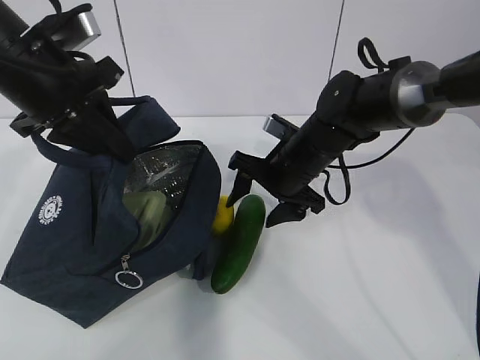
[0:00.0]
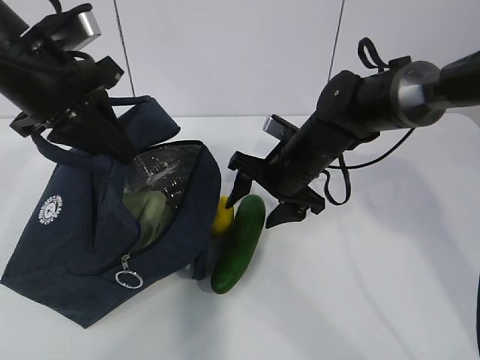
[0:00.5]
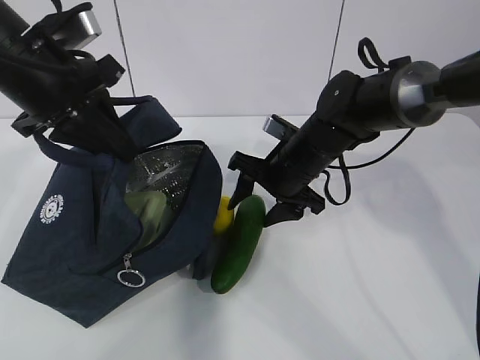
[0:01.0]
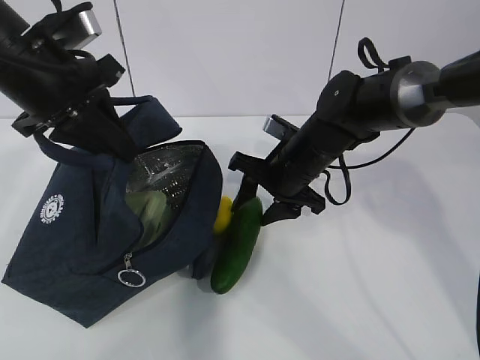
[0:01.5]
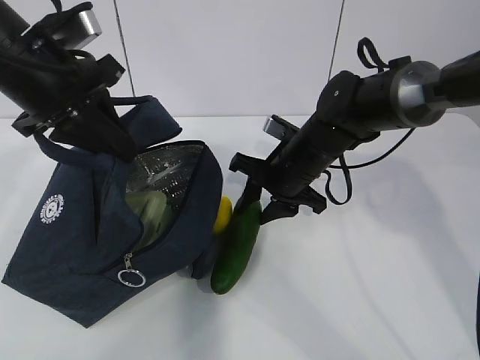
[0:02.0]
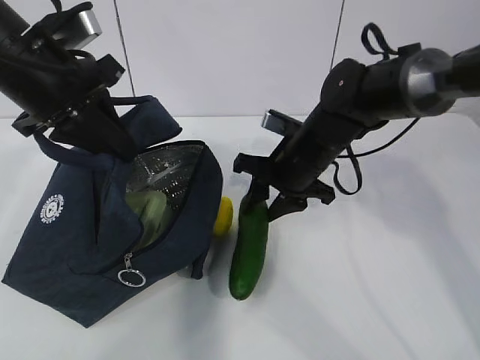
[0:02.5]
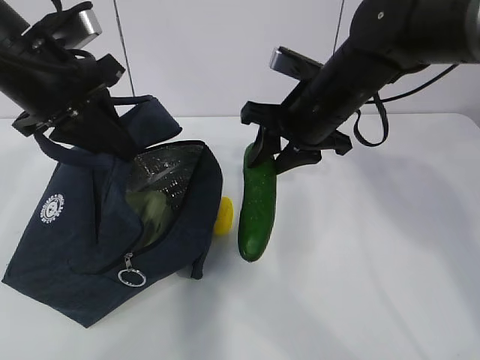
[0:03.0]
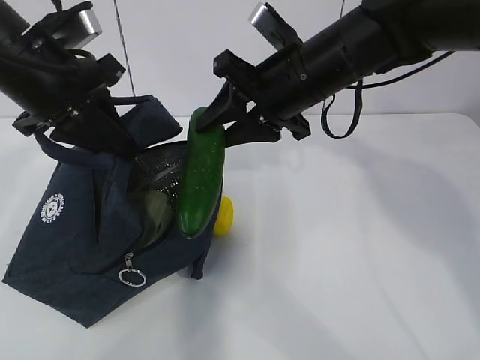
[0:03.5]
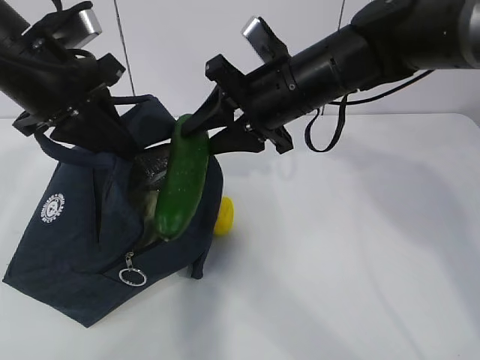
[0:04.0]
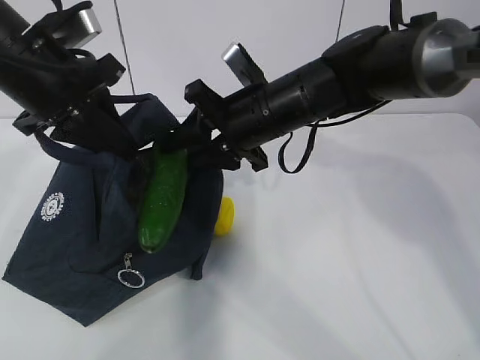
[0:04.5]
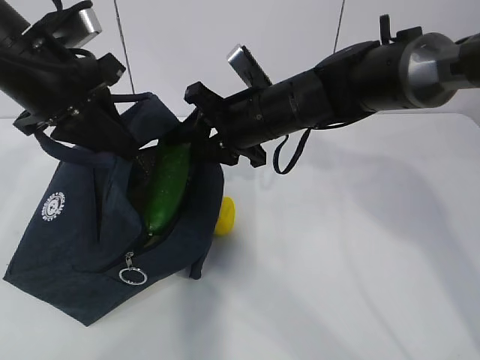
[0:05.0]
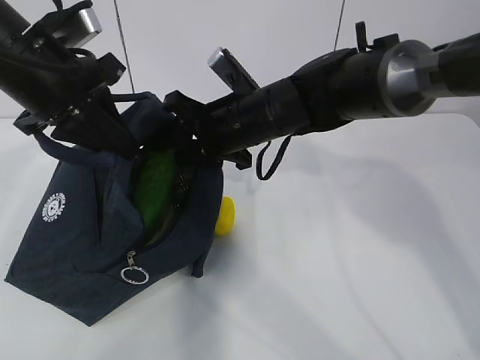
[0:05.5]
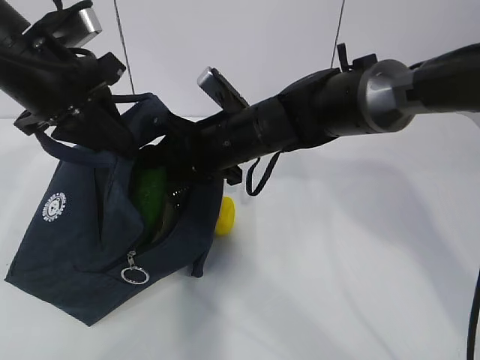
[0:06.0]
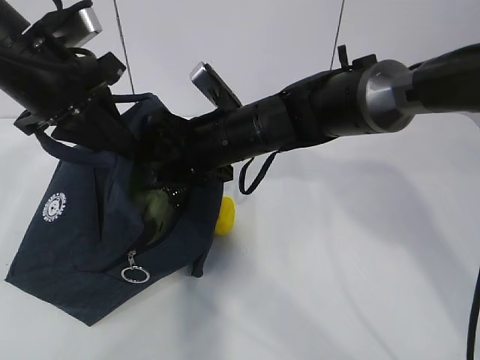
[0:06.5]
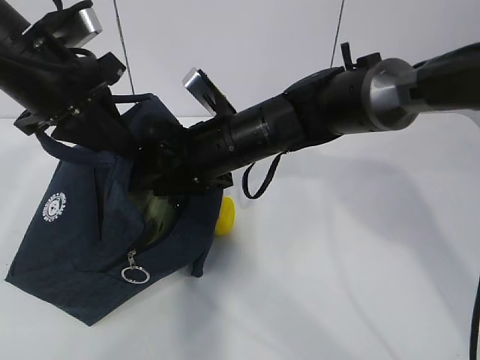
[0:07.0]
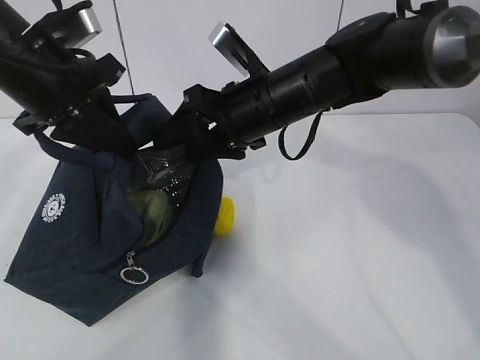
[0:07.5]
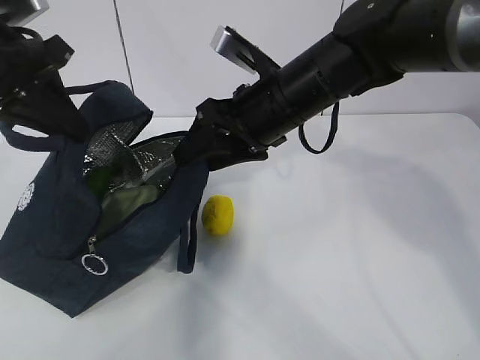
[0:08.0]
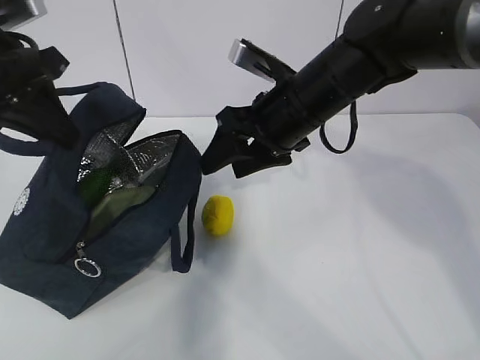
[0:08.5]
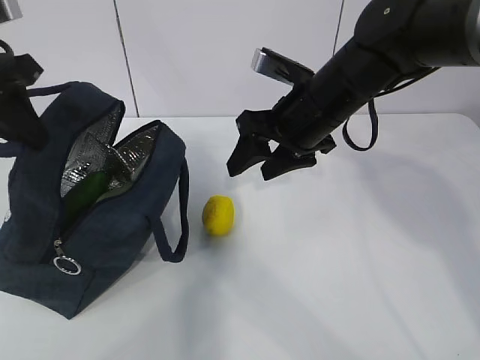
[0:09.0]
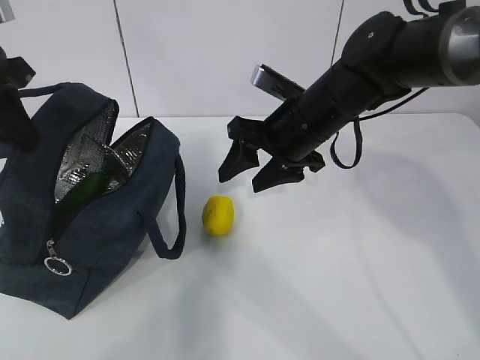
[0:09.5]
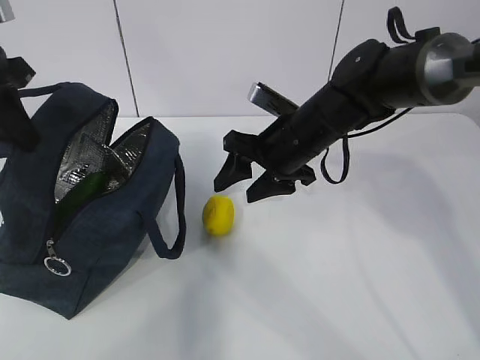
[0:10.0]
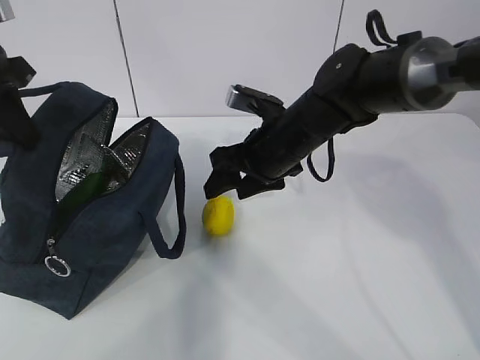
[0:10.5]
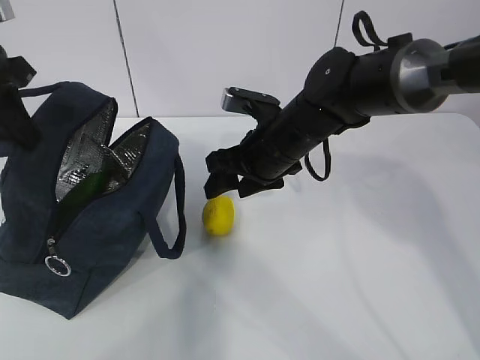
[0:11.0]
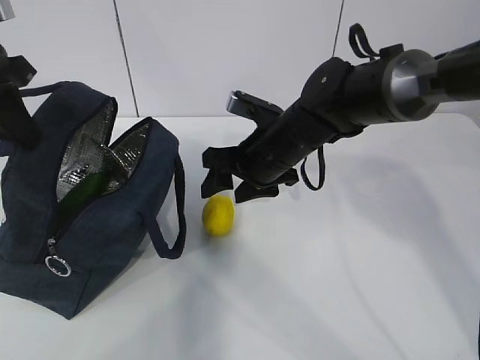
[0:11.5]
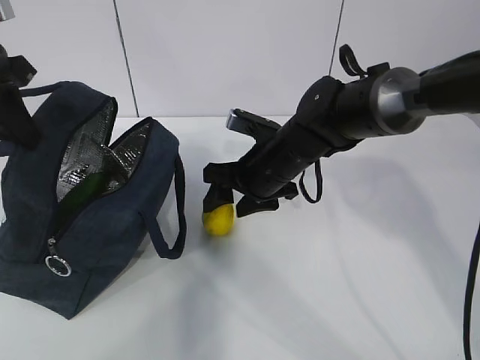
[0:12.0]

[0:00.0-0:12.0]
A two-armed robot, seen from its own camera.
Step, 0:00.0 to 0:06.5: Grab the lemon with your right hand.
Step, 0:07.0 to 0:09.0: Secure the lunch bag with your left hand.
Step, 0:09.5 to 0:11.5: Grab the lunch bag with your right hand.
0:00.0 to 0:02.0: The right gripper closes.
0:02.0 to 0:04.0: The right gripper shifts about 10 cm upward.
0:04.0 to 0:06.0: The right gripper shifts some 10 cm downward and to the left.
0:06.0 to 0:08.0: The right gripper travels upward by about 5 cm.
0:08.0 to 0:10.0: The right gripper heads downward, covering about 5 cm.

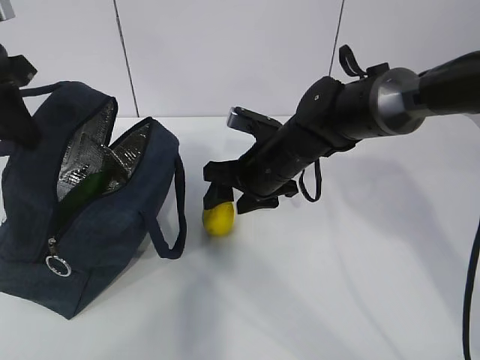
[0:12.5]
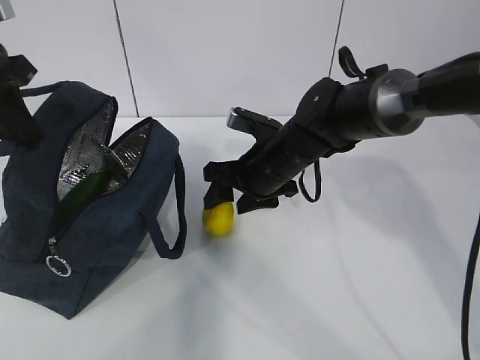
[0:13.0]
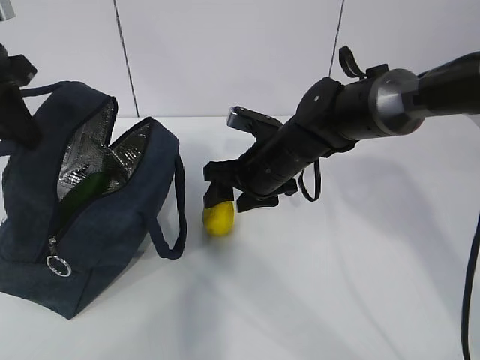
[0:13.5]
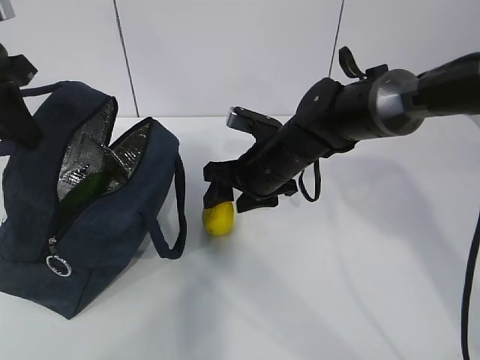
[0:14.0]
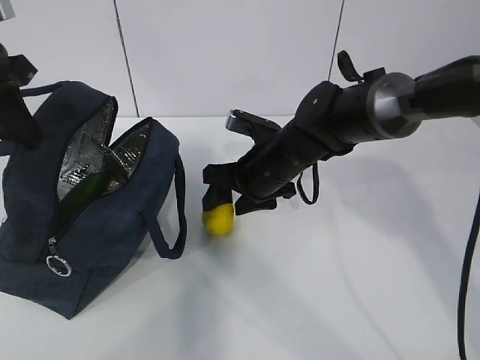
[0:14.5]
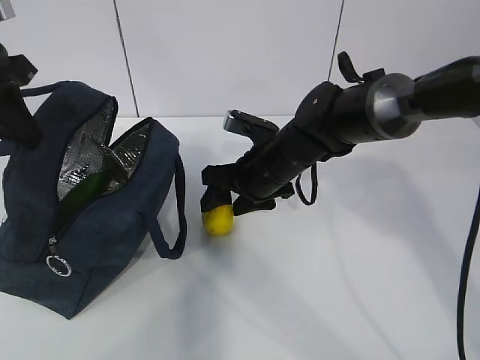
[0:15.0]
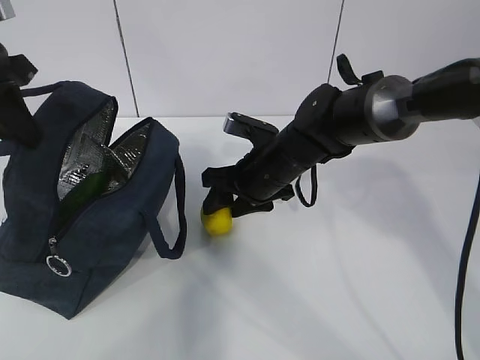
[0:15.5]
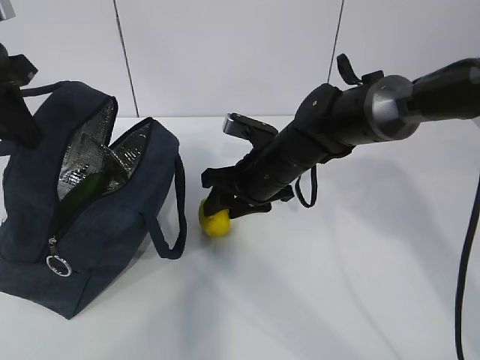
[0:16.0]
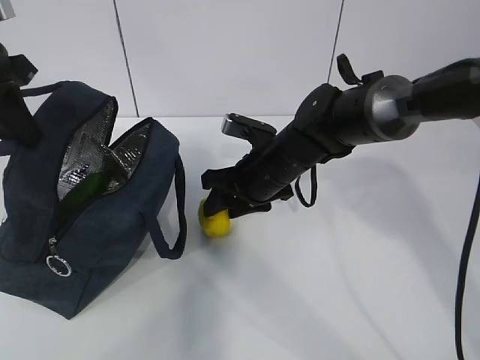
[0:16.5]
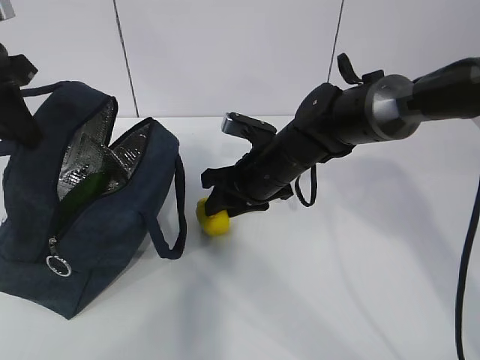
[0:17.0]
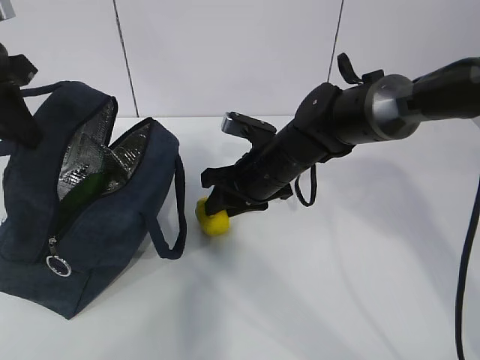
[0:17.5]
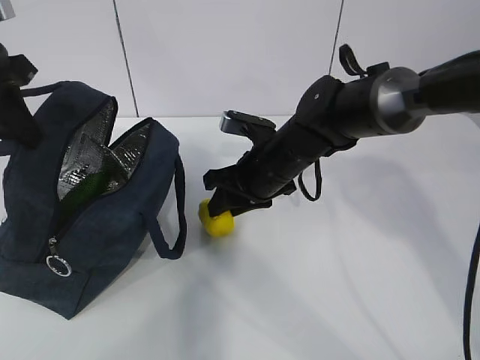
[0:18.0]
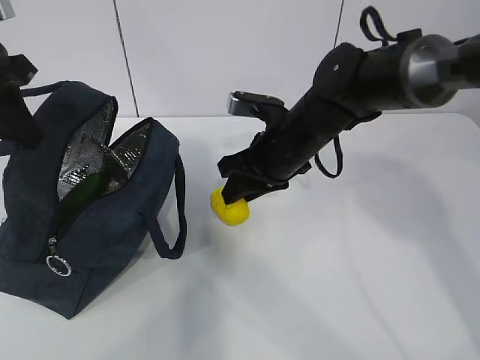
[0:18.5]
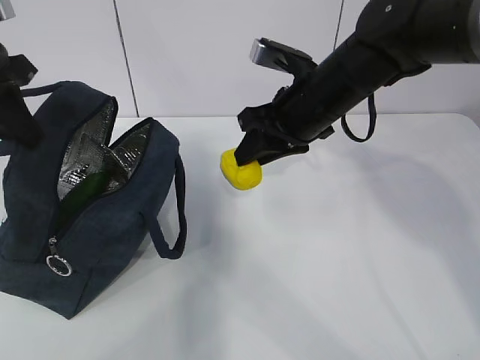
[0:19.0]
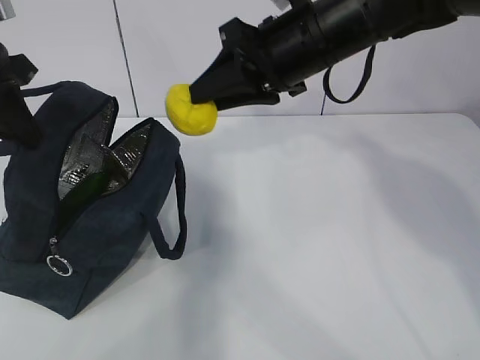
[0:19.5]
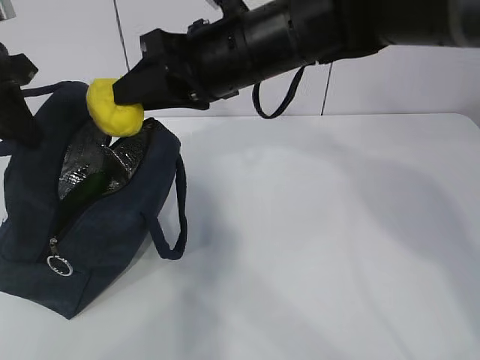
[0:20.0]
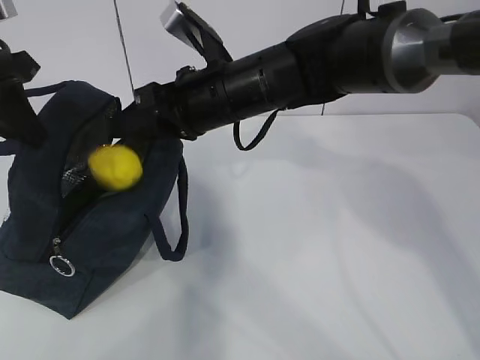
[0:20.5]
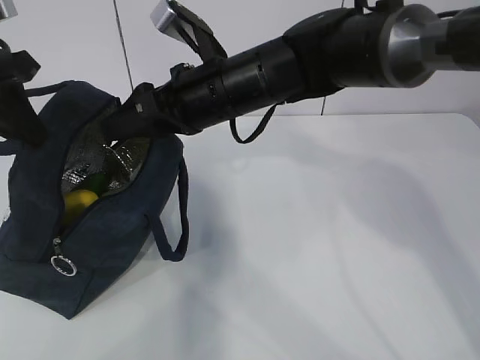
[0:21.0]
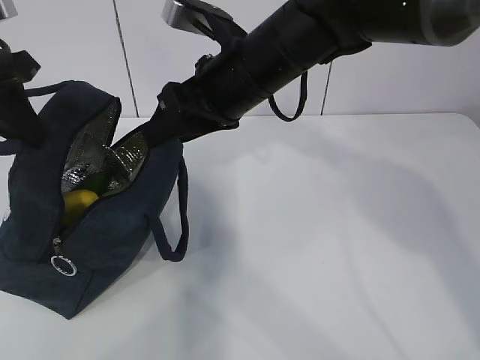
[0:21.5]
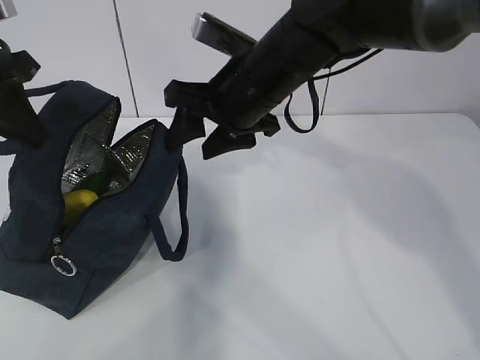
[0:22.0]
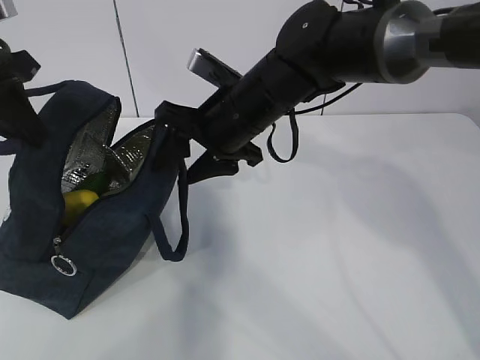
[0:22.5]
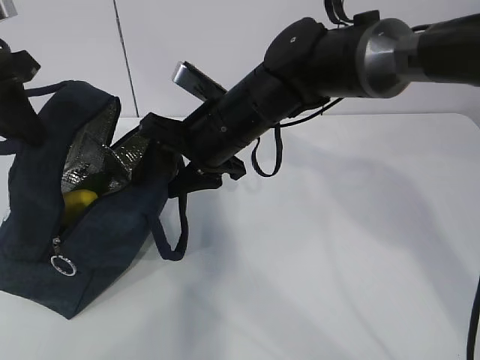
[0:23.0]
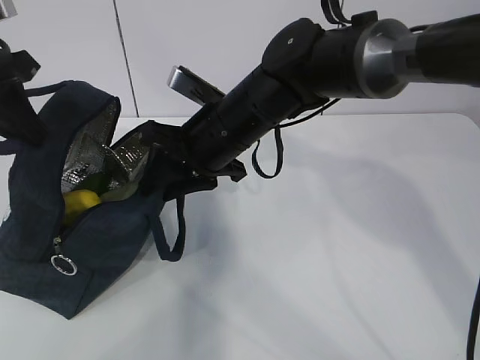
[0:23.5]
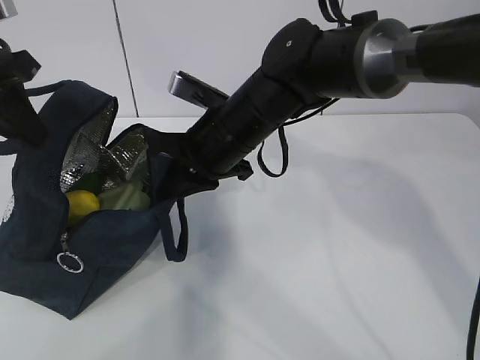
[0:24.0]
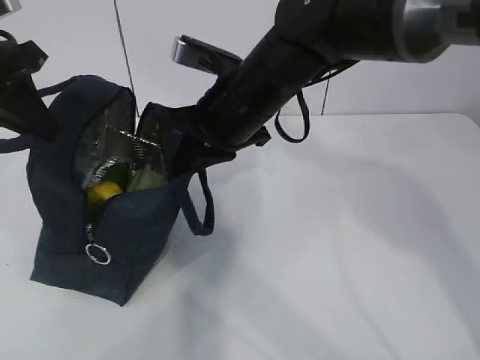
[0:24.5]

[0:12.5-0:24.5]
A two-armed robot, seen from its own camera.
Step, 0:12.5 to 0:16.0: Move the lunch bag to the right.
0:12.5 to 0:16.5: The two grippers keep their place.
0:16.5 to 0:18.5: The grippers stay close to where they were, moving slightly.
0:18.5 to 0:20.5: The right gripper goes about 10 cm upward and to the left.
0:22.5 to 0:24.5: The right gripper closes up.

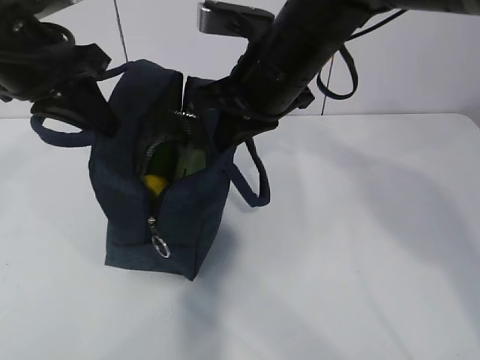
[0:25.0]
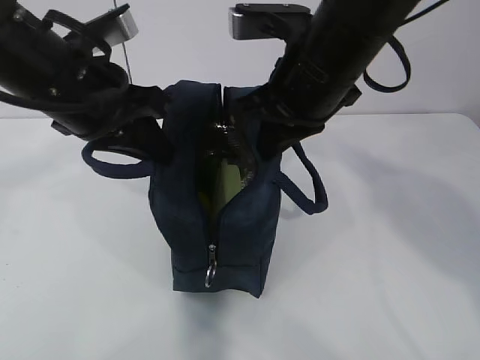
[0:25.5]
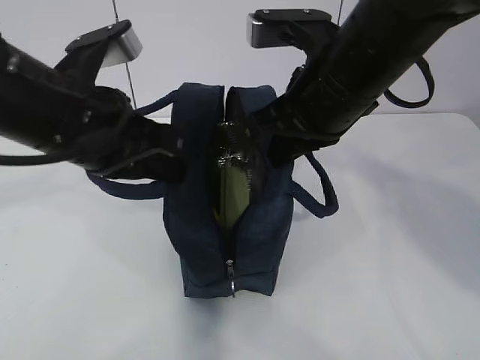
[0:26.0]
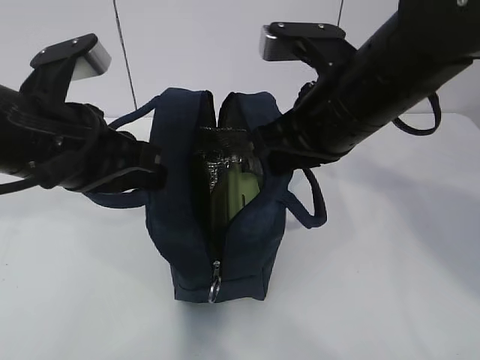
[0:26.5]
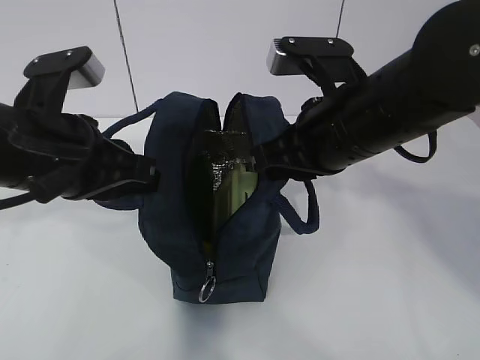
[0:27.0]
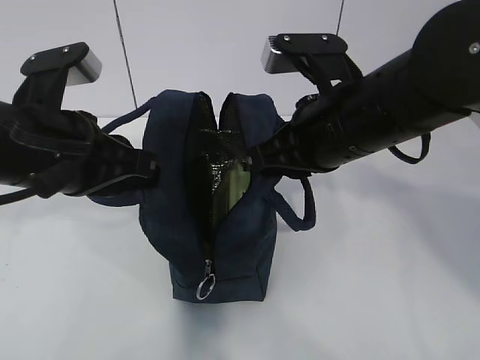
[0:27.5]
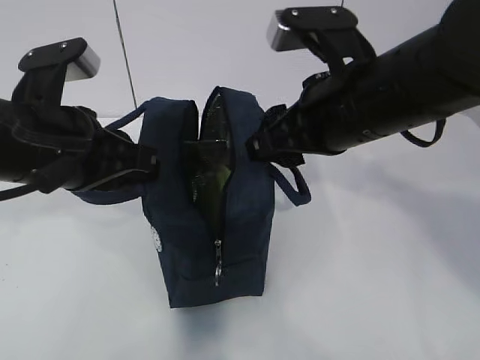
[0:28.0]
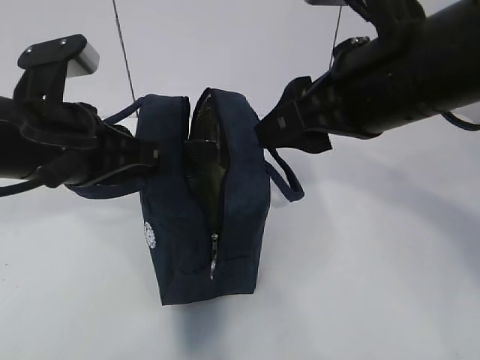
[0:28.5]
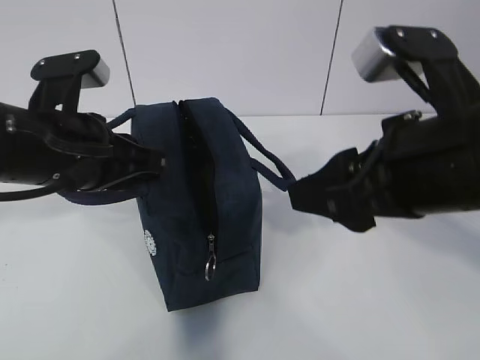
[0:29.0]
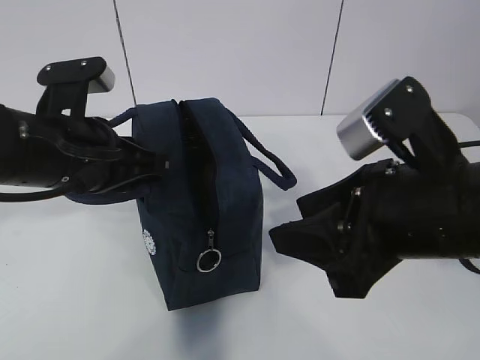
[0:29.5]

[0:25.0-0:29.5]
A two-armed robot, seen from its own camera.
0:25.0 to 0:27.0: The right gripper goes some 10 cm backward and to the right, while the left gripper shifts roughly 10 cm backward and downward.
0:27.0 to 0:29.5: The right gripper travels backward by some 10 cm, and opens.
